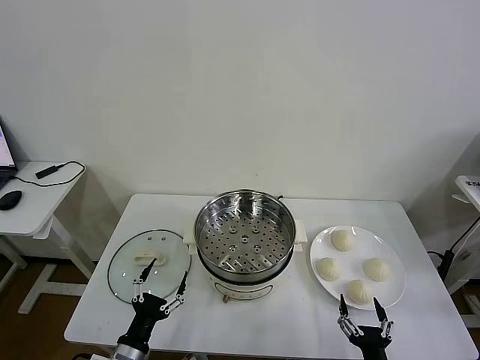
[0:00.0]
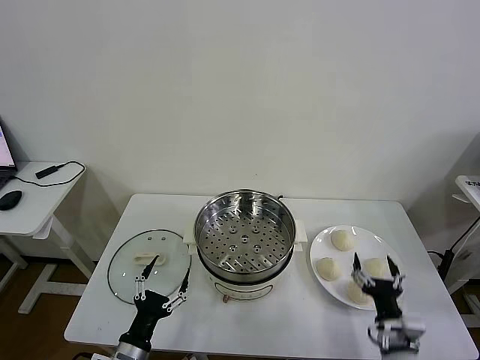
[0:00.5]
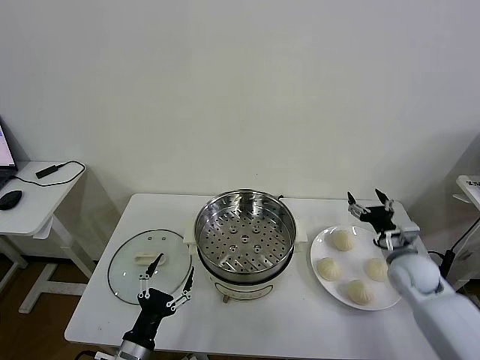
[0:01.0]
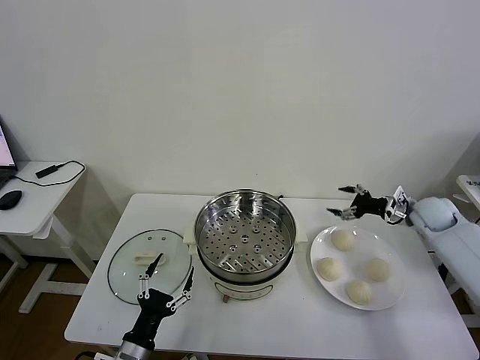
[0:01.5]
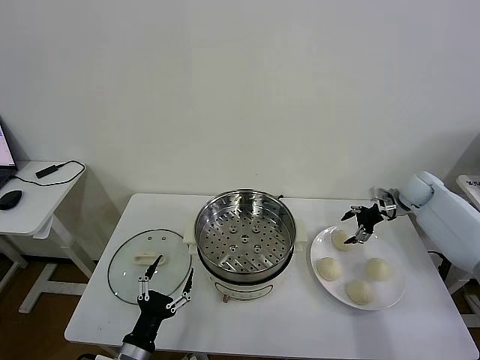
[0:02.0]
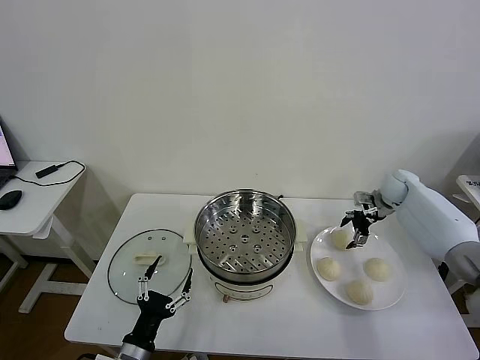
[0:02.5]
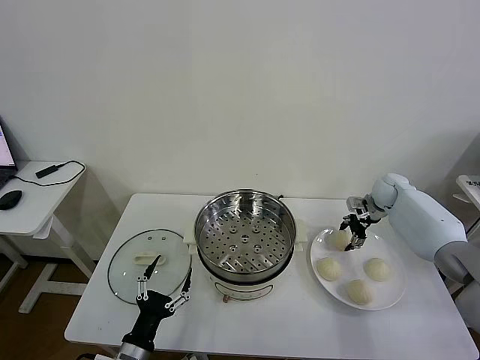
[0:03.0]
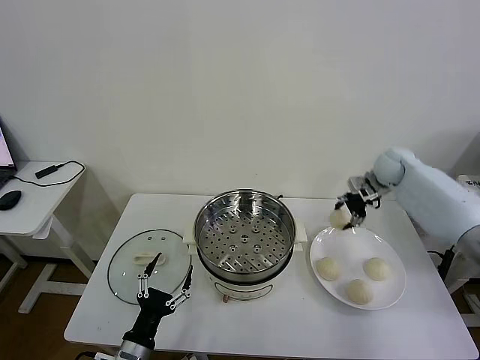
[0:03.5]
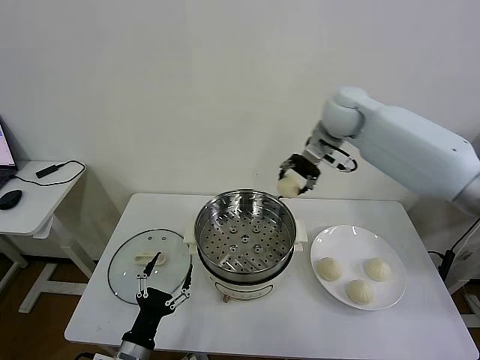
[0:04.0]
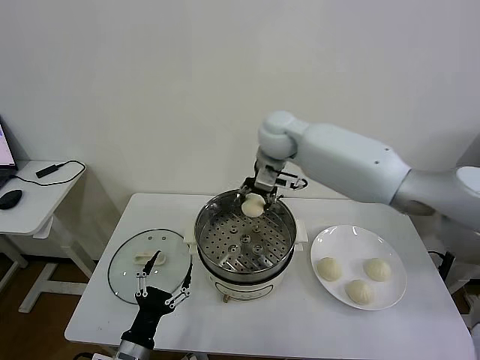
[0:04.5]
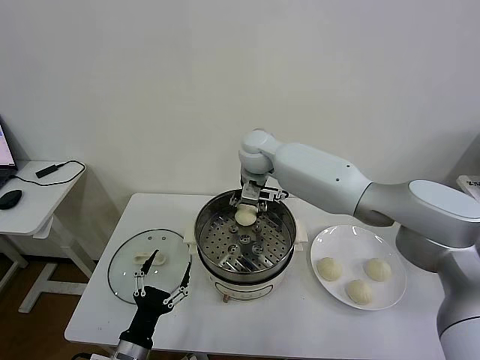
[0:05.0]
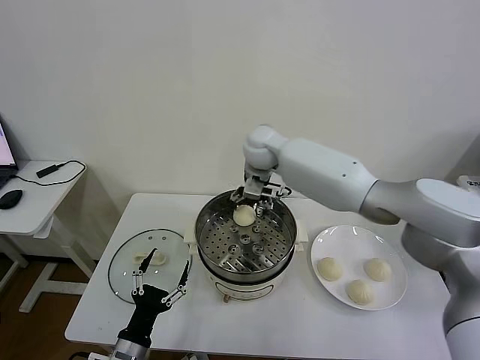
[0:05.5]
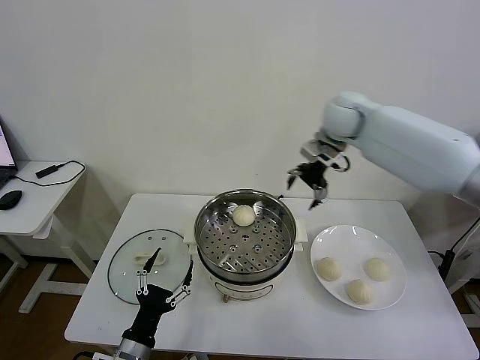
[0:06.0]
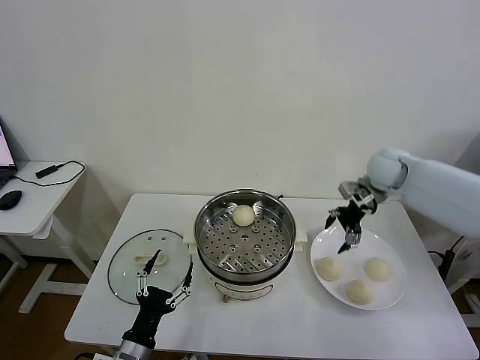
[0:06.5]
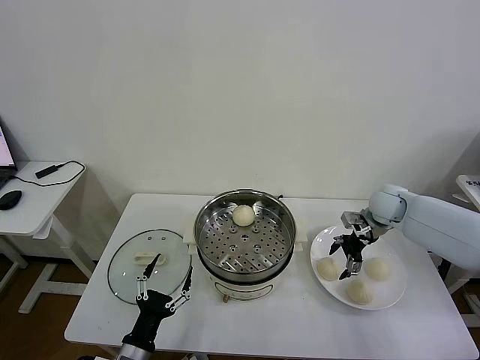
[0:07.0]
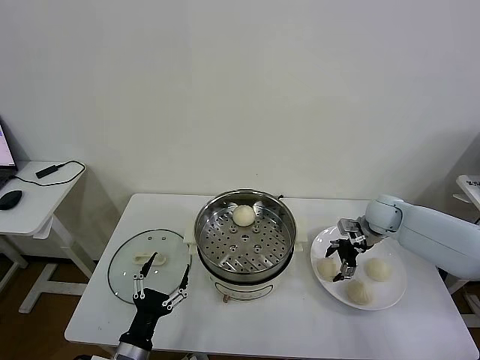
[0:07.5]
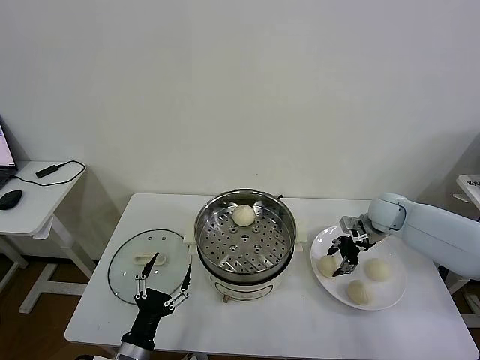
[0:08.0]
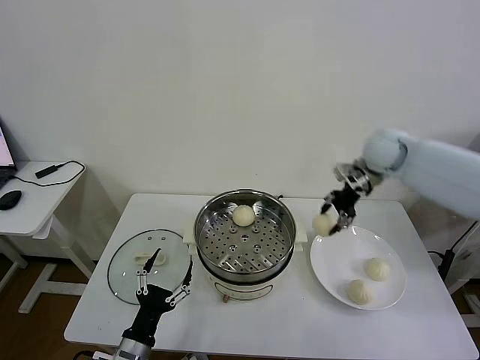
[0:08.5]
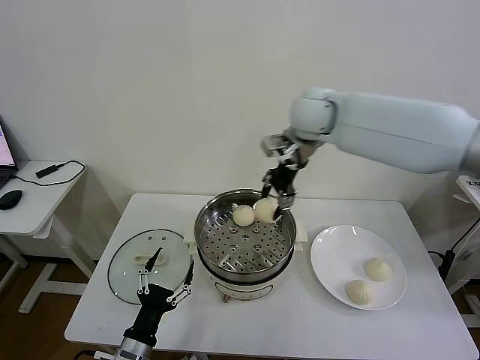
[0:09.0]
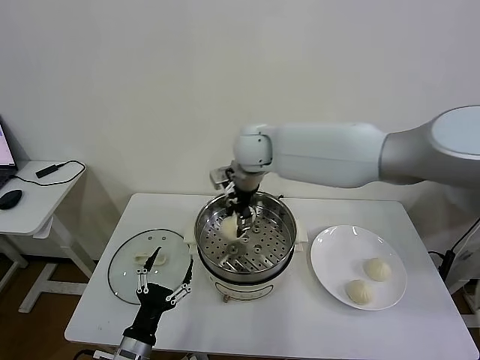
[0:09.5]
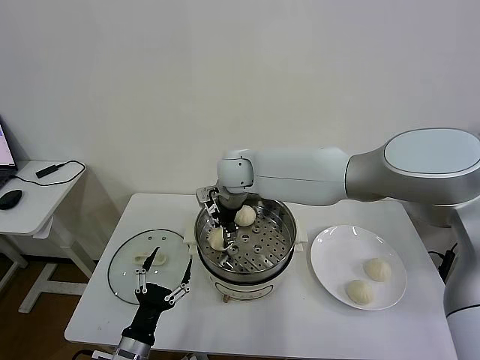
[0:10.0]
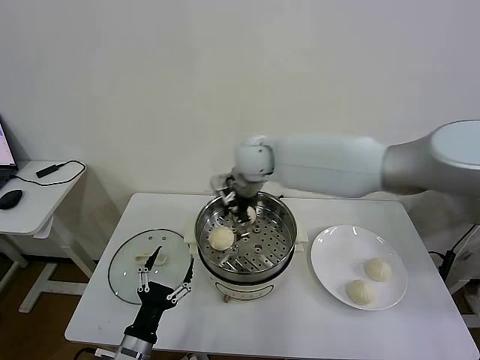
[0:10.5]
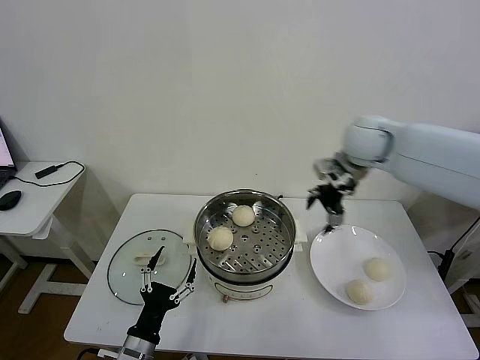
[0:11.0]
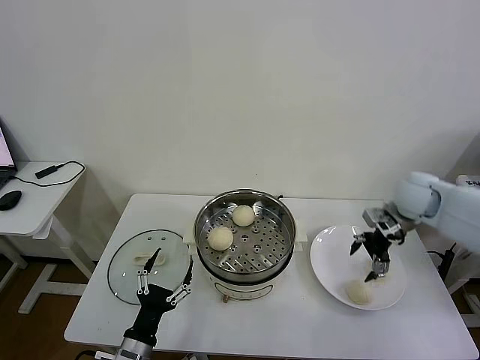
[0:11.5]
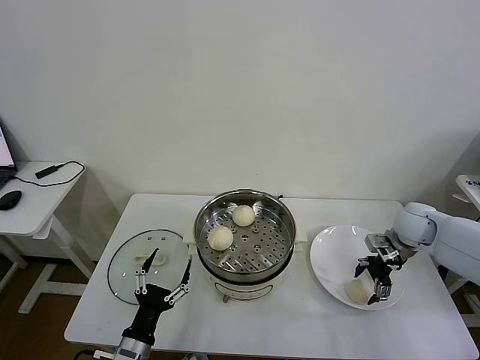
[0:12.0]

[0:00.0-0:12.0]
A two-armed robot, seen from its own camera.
Task of the whole recording: take steamed baozi put them in steamer then cover it.
Step, 0:00.0 to 0:03.0: Grasp the baozi in the plate with right gripper.
Step, 0:03.5 to 0:05.0: Place the baozi on the steamer with right gripper.
Step, 0:05.5 to 0:07.5: Grasp the baozi in the plate with right gripper.
Step, 0:08.0 to 0:10.0: Place the baozi on the steamer with right gripper.
0:02.0 to 0:04.0: The right gripper shifts some 35 cm to the left and upward, and closes up.
0:04.0 to 0:06.0: The right gripper heads to the right, covering some 10 cm, and opens its fingers.
0:06.0 to 0:08.0: The right gripper is displaced downward and to the right by about 20 cm, and closes up.
0:08.0 to 0:10.0: The right gripper goes some 40 cm to the left.
0:10.0 to 0:12.0: The right gripper shifts roughly 40 cm to the right, and opens up.

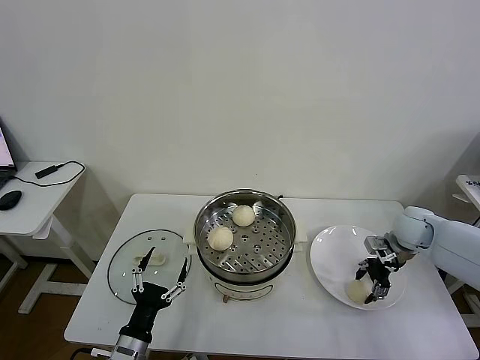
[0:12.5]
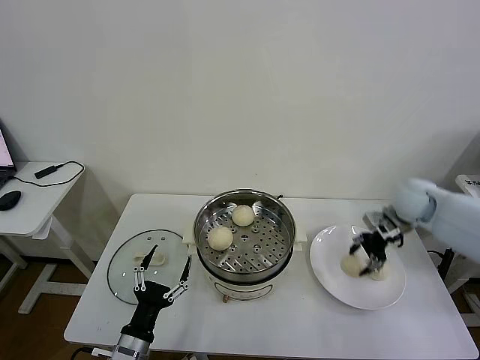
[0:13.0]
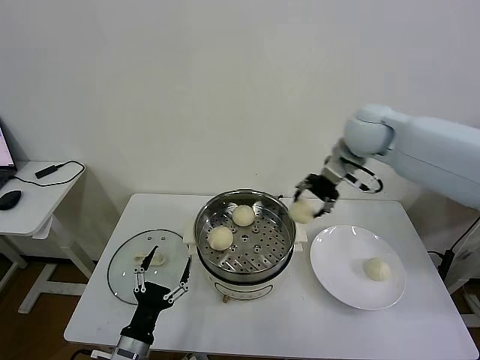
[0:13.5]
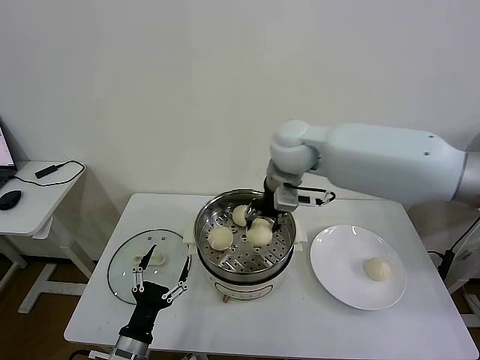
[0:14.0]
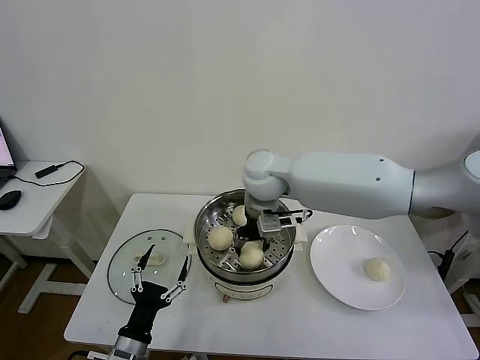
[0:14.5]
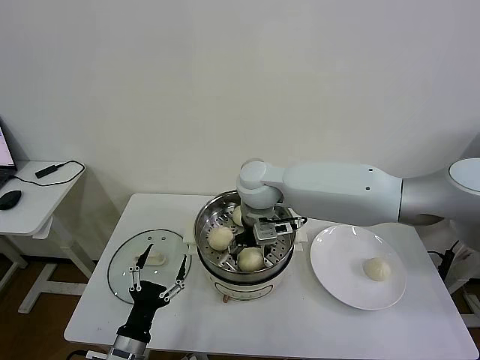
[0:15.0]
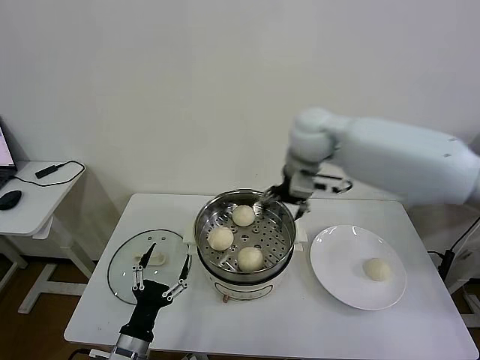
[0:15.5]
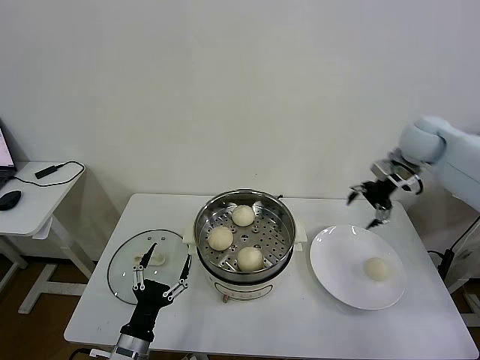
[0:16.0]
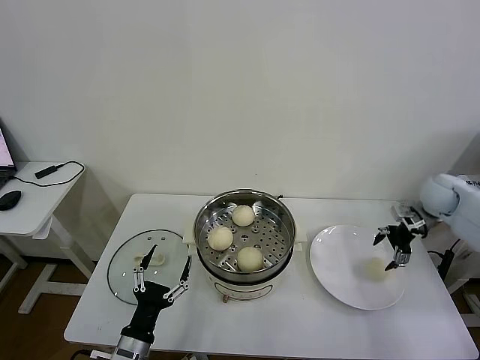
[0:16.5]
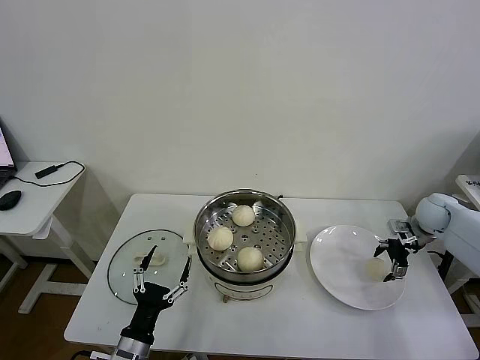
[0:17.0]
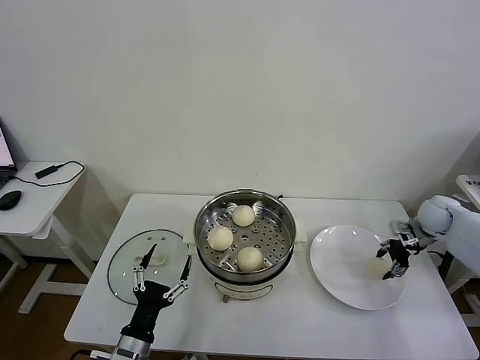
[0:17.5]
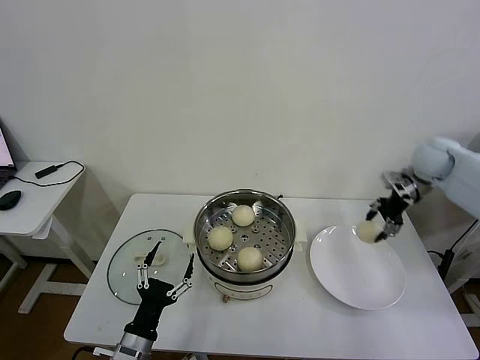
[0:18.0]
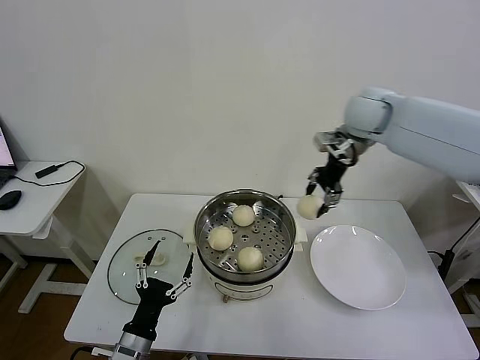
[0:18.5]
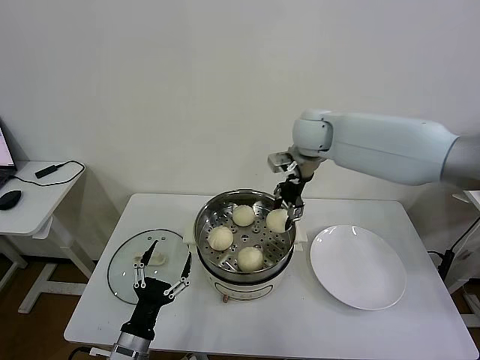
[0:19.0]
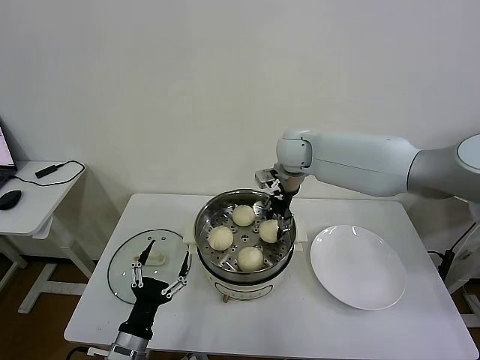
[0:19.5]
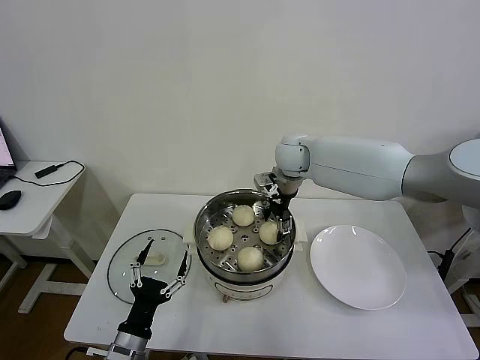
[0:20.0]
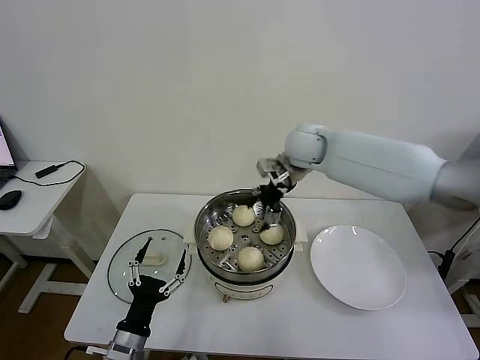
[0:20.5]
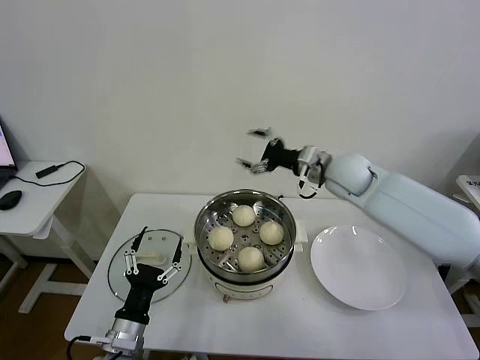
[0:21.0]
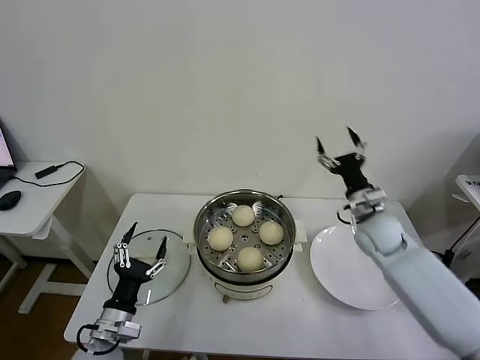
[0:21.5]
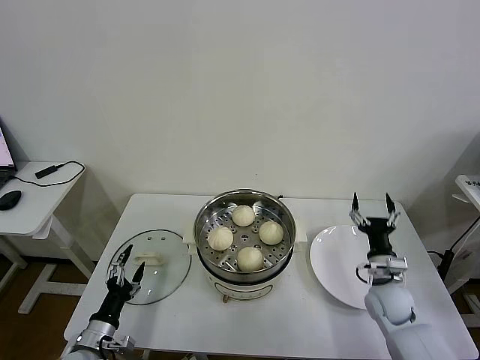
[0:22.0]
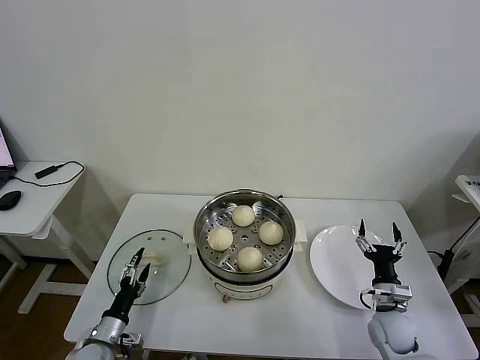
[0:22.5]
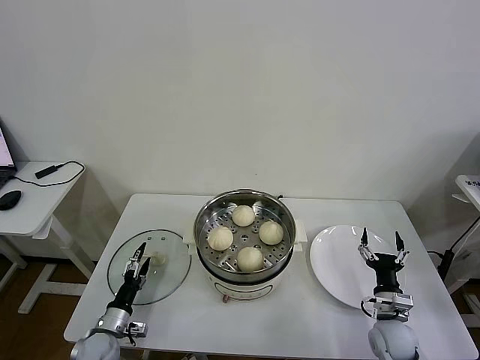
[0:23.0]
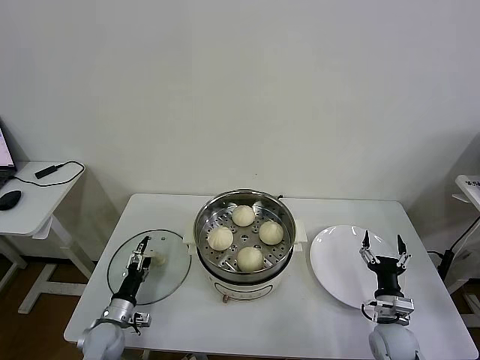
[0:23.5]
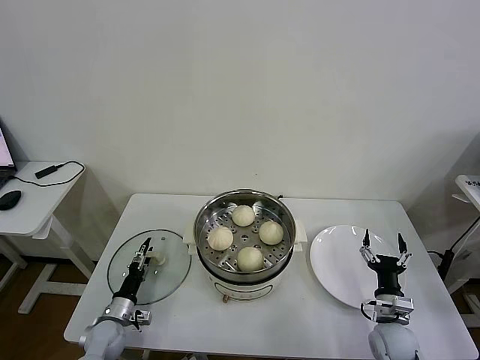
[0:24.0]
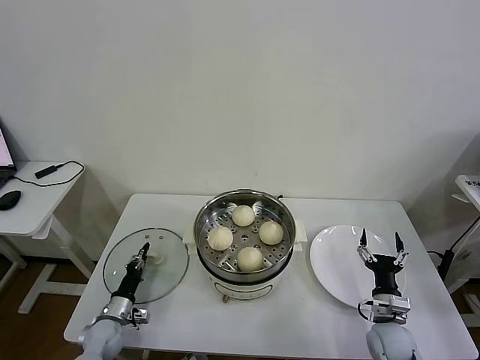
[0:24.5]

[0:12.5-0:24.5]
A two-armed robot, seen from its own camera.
Task of the whole recording: take steamed baozi put them in steamer then cover it.
Step, 0:13.0 to 0:15.0: Place the baozi on the steamer with right gripper.
Step, 0:15.5 to 0:17.5: Grasp the baozi in the plate with right gripper.
Step, 0:18.0 to 0:20.0: Place the baozi on the steamer with right gripper.
Step, 0:20.5 to 0:24.0: Grasp the pot lid with left gripper.
0:12.5 to 0:14.5: The right gripper is displaced to the left by approximately 35 cm.
0:14.5 to 0:16.5: The right gripper moves to the right, some 40 cm, and opens up.
0:16.5 to 0:18.5: The right gripper moves to the left and upward, about 30 cm, and closes its fingers.
0:18.5 to 0:20.5: The right gripper moves to the left and downward, some 10 cm, and opens its fingers.
0:20.5 to 0:22.5: The right gripper is displaced downward, backward and to the right by roughly 50 cm, while the left gripper is displaced downward, to the left and forward by approximately 15 cm.
0:22.5 to 0:24.5: The left gripper moves forward, approximately 5 cm, and closes.

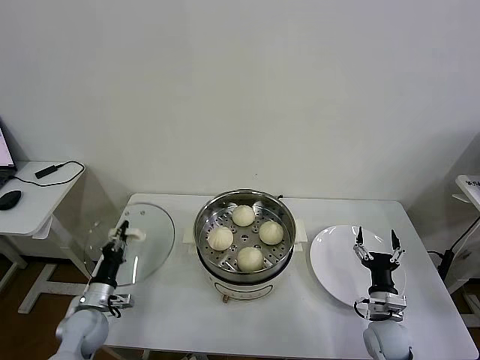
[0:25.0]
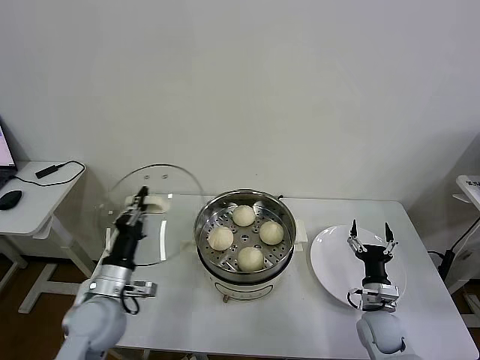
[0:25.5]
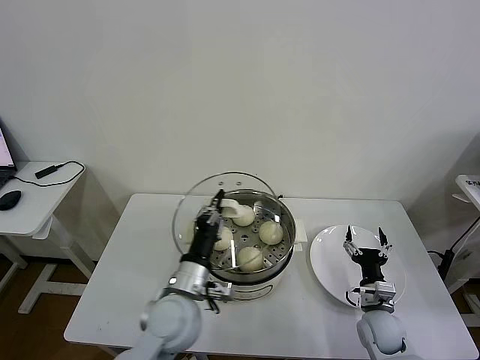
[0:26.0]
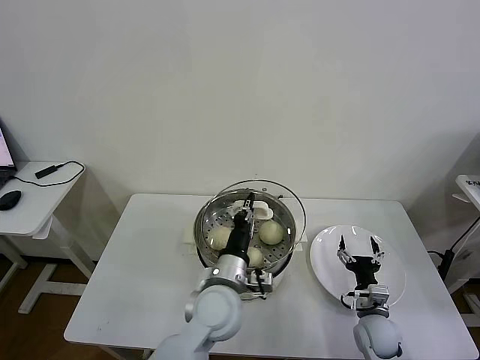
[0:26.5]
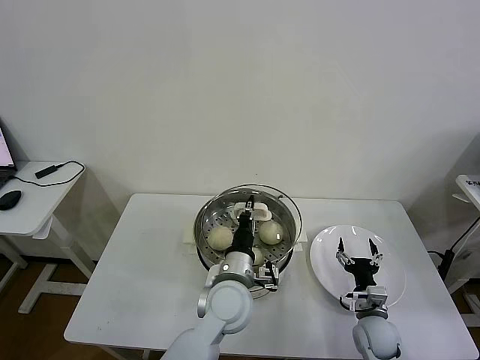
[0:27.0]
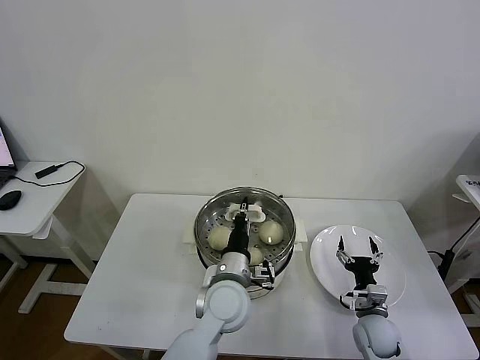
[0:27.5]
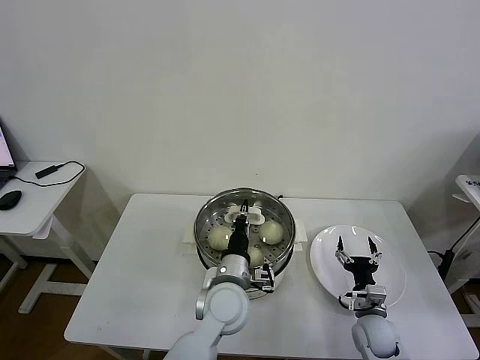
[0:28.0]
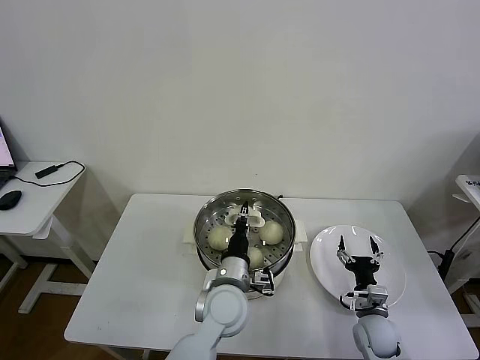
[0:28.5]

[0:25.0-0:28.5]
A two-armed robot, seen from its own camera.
Task of the whole recording: take steamed baozi put them in steamer then cover it.
0:25.0 to 0:27.0: The left gripper goes some 35 cm to the right and upward.
0:27.0 to 0:28.5: There are only small adjustments of the grippers.
